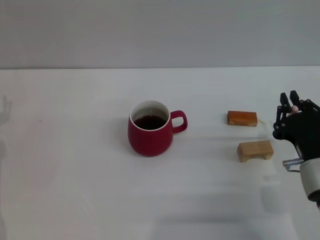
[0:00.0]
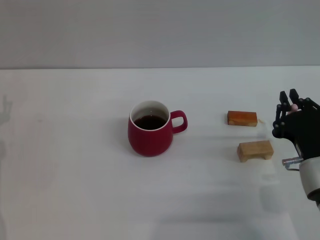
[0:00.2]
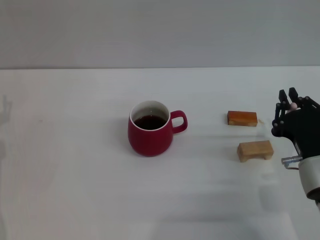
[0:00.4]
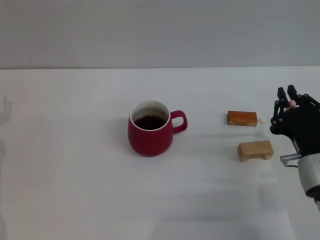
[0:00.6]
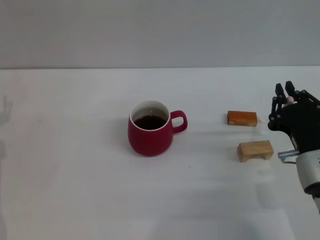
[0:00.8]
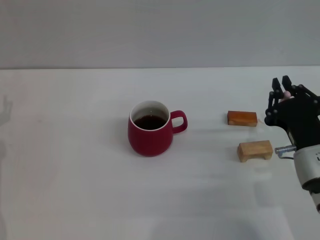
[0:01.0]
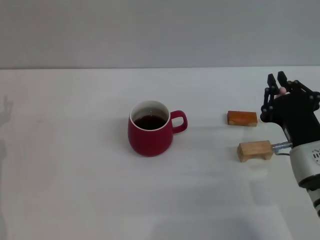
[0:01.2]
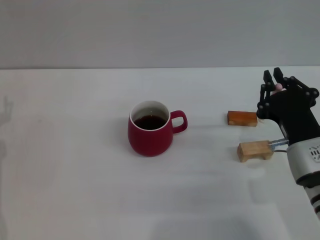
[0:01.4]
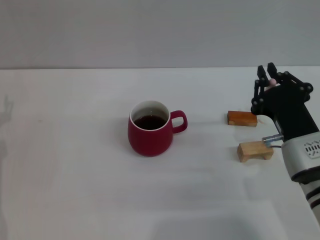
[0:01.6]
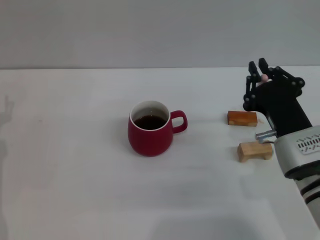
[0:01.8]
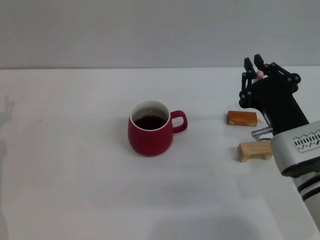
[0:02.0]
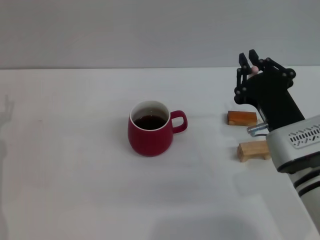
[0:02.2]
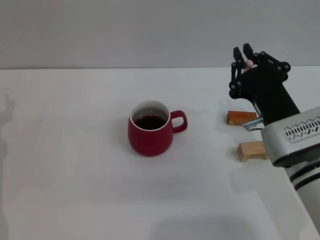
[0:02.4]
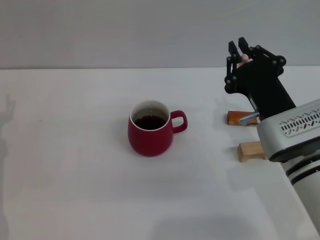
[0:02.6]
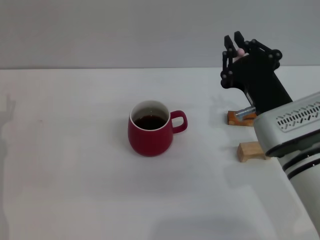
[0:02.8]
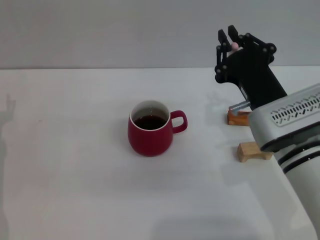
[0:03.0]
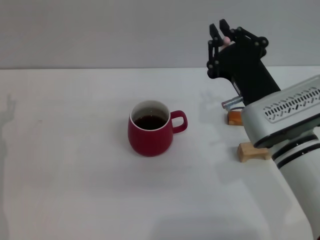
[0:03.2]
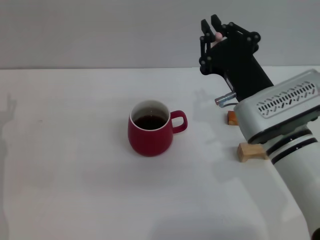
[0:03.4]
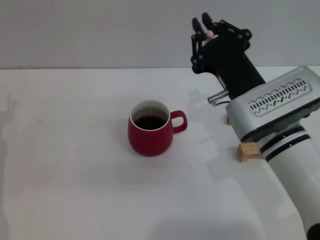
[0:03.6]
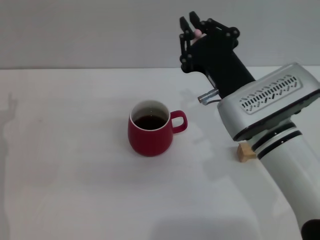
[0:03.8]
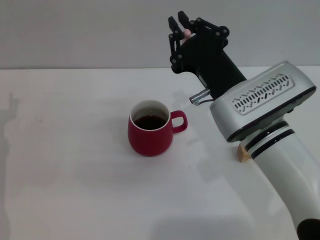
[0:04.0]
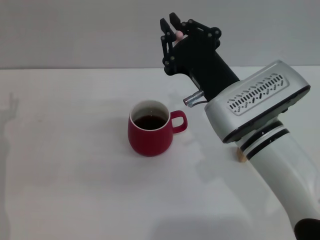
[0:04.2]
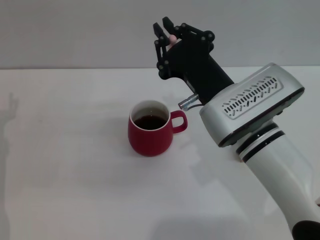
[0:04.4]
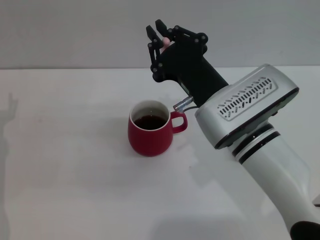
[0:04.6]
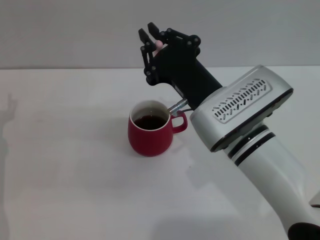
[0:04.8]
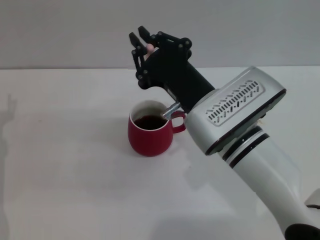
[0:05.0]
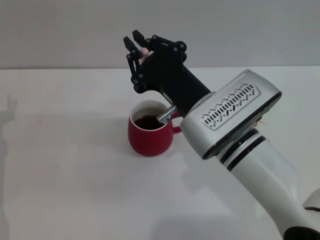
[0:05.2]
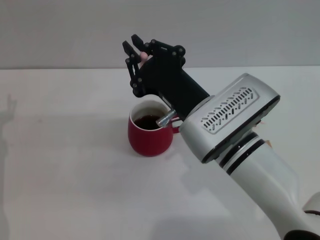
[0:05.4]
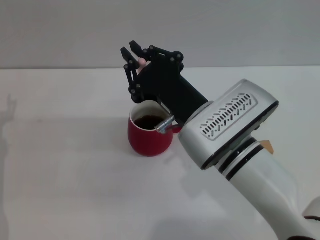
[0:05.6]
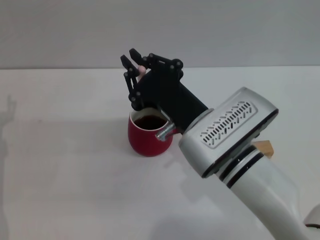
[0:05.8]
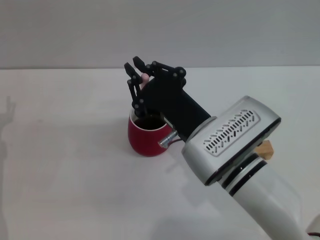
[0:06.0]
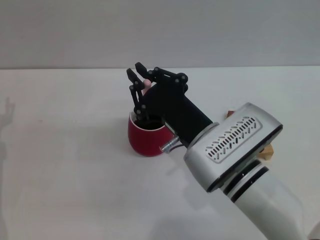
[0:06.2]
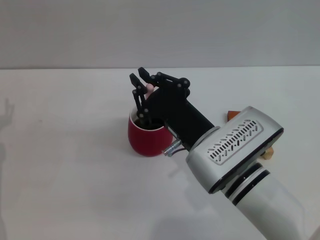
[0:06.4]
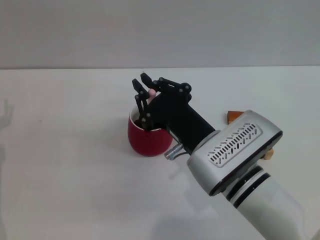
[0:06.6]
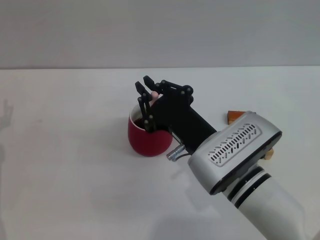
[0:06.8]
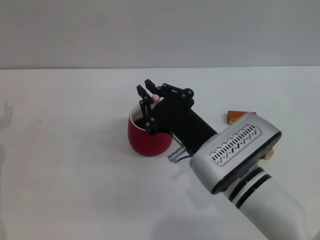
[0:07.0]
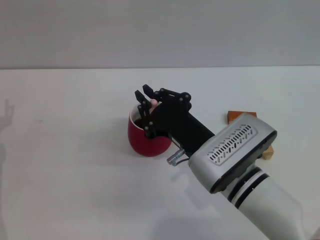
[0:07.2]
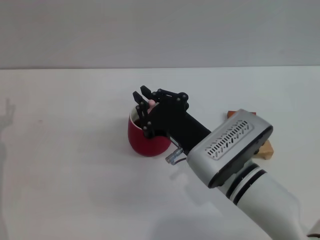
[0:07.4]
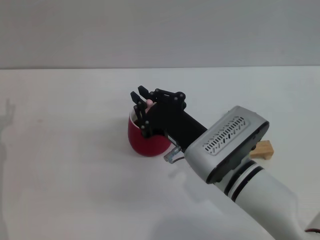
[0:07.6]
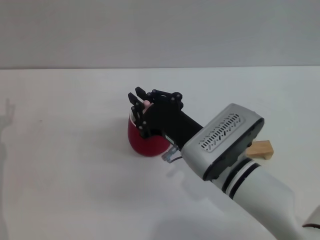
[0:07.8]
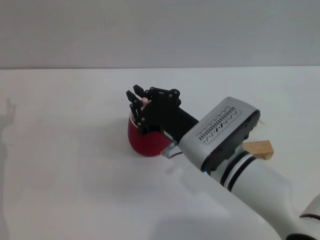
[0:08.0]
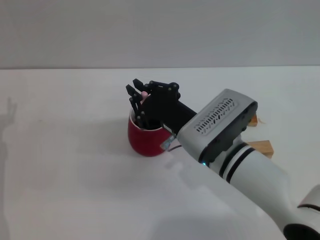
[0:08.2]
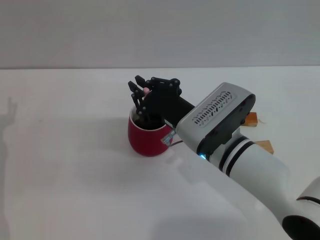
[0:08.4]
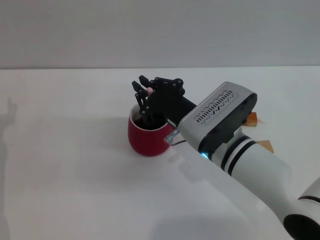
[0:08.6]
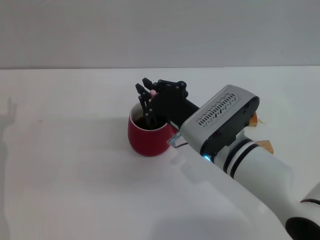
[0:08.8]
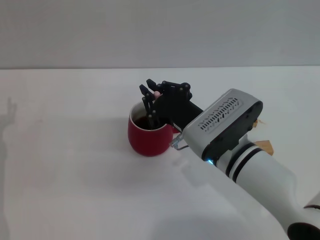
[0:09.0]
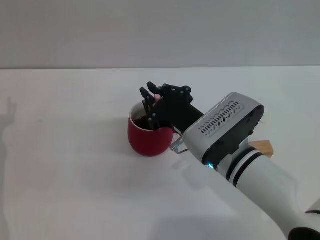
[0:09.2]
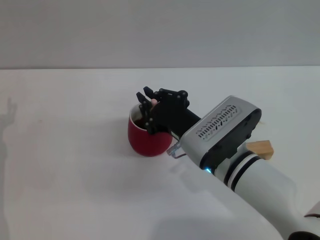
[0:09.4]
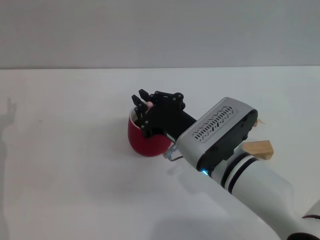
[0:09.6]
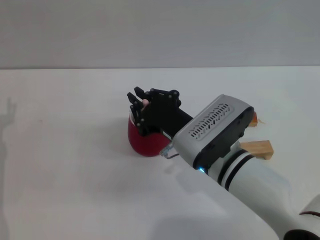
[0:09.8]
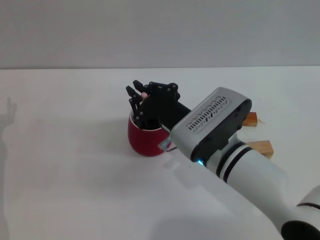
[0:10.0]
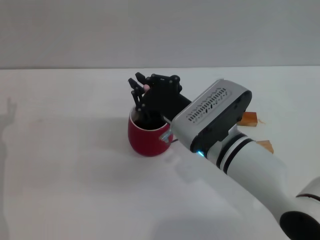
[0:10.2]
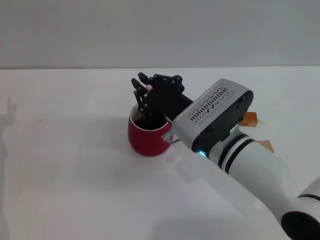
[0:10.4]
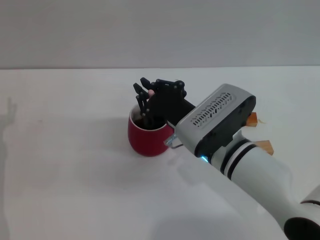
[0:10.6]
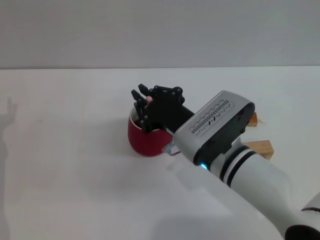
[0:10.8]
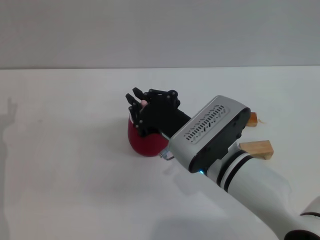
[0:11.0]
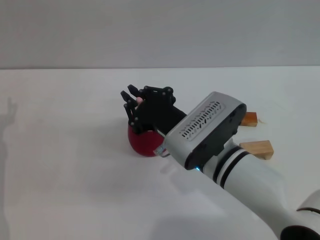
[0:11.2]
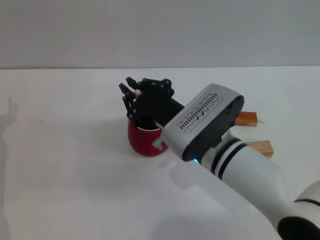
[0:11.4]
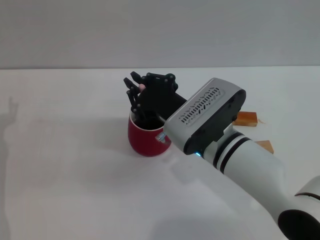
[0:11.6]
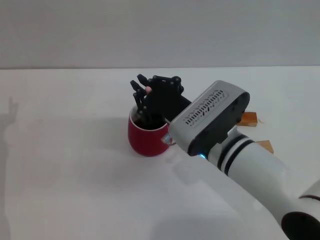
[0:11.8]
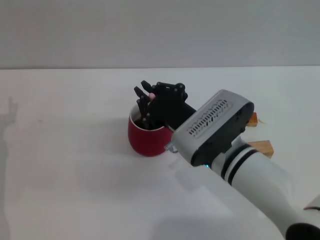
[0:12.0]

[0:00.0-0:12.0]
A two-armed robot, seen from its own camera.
Task of the whole recording: Move the red cup to the center, lift the pink spoon, stir it three times in the cup, and put the spoon into the cup.
0:00.0 to 0:01.6: The grippers make only small movements.
0:01.6 to 0:03.0: The right gripper shifts by some 5 cm.
0:03.0 to 0:04.4: The right gripper heads to the left, covering some 5 cm.
0:06.0 to 0:12.0: The grippers move only a little.

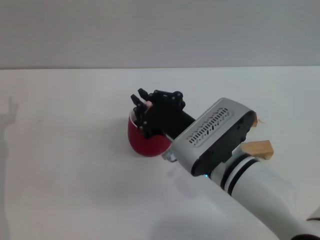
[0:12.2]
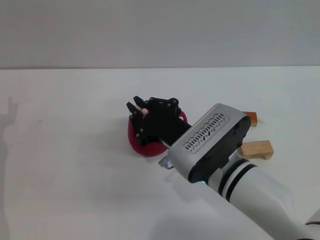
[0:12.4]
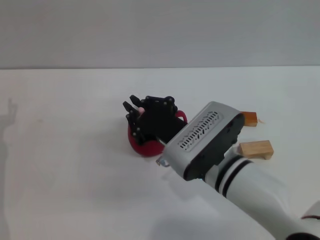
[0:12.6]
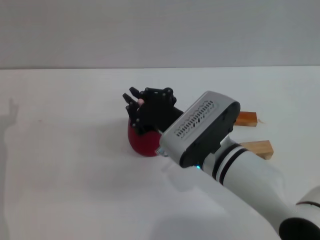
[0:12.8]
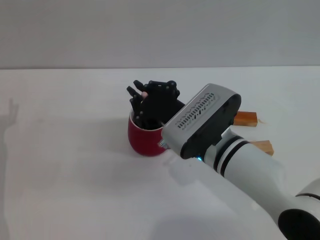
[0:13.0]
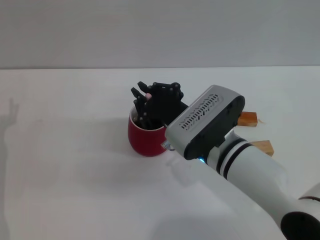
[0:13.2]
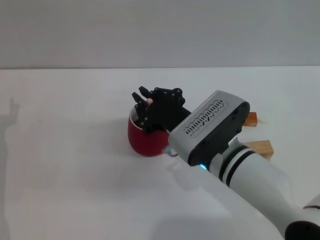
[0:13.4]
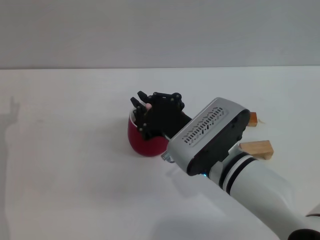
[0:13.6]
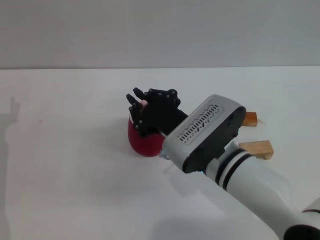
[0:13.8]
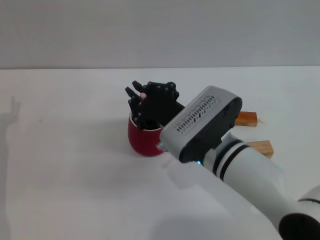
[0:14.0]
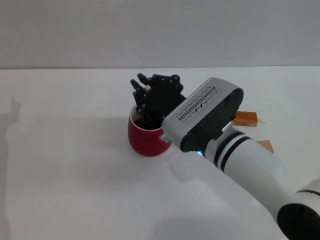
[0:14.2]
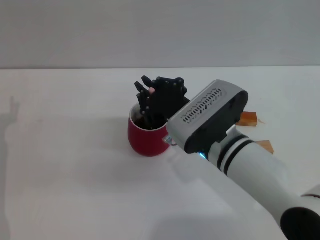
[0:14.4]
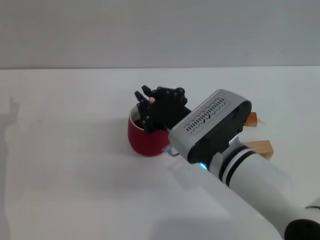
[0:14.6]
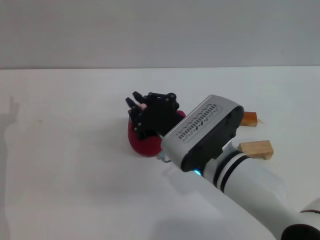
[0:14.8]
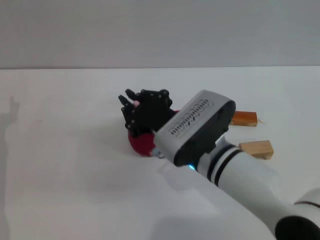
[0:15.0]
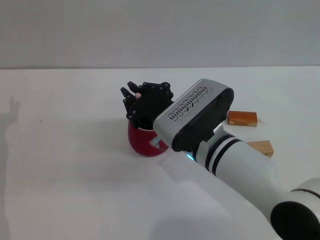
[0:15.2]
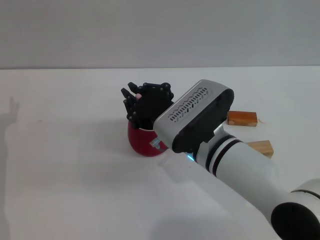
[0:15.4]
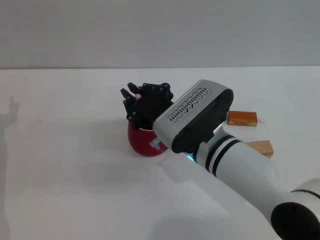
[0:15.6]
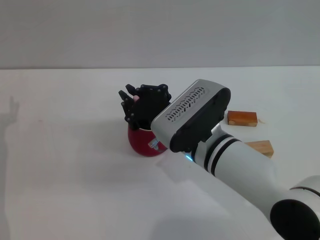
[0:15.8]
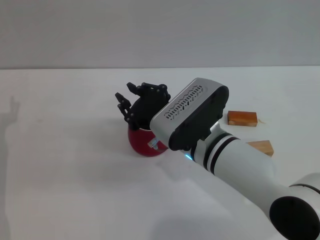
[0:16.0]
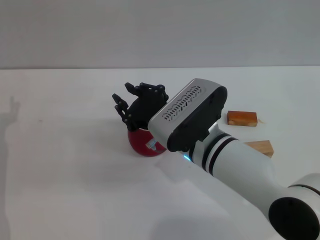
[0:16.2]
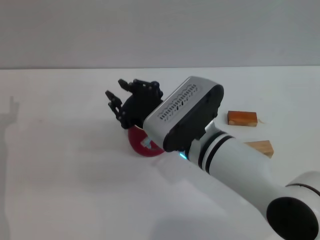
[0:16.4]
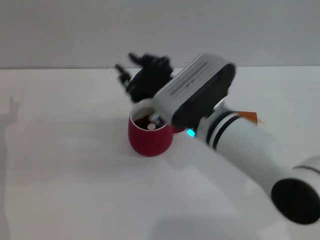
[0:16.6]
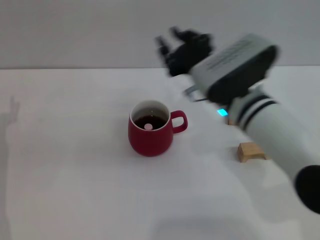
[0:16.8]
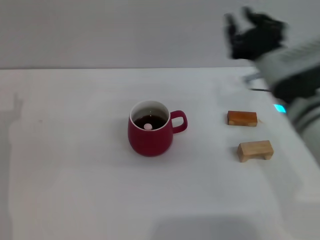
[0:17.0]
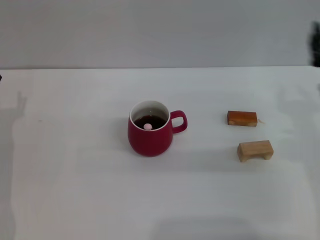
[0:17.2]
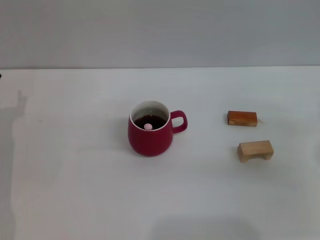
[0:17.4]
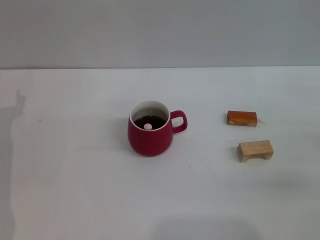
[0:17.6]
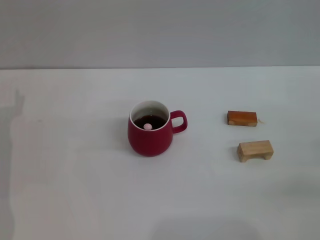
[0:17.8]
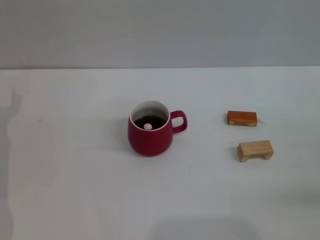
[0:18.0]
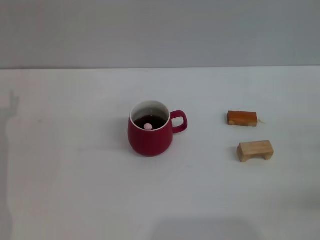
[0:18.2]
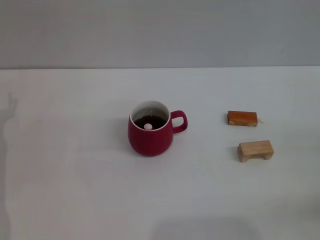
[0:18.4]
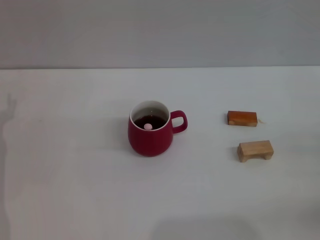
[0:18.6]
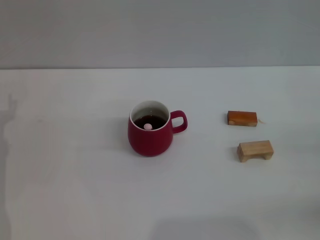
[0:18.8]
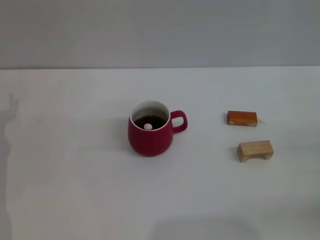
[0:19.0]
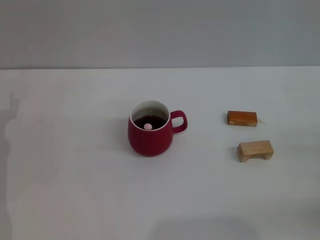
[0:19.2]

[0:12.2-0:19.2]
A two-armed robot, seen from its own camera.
Task of the whole recording: Move the red cup to the center, lift the pink spoon, stir it three times in the cup, and put the spoon into the cup.
Step, 0:12.2 to 0:16.6: Stir the coffee in the cup with the right gripper.
0:12.2 to 0:16.4: The grippers make only small movements.
0:16.4 to 0:17.8: The right gripper heads to the right, covering roughly 30 cm, and opens.

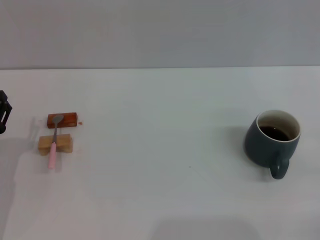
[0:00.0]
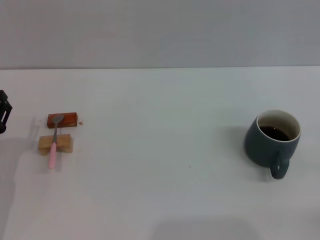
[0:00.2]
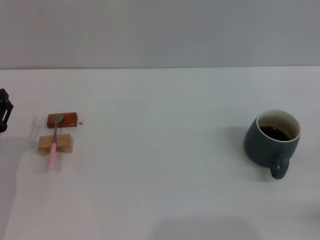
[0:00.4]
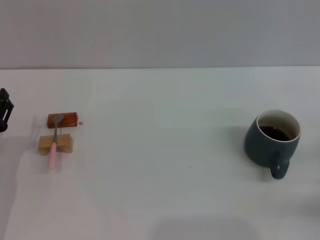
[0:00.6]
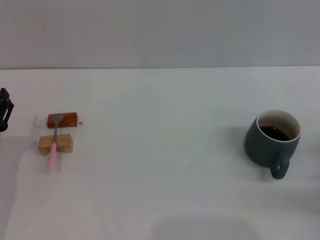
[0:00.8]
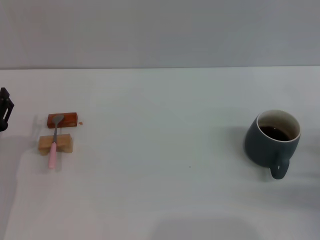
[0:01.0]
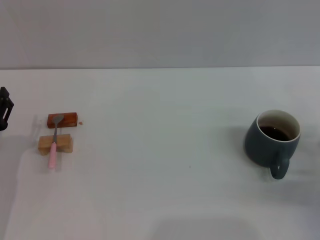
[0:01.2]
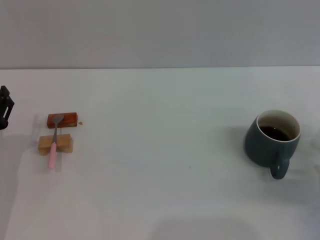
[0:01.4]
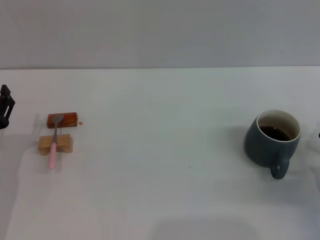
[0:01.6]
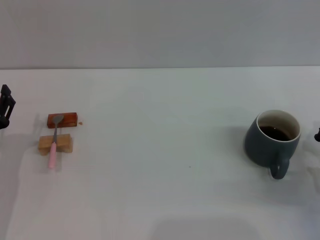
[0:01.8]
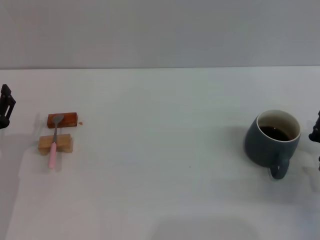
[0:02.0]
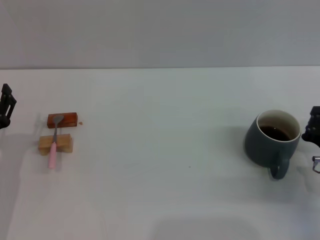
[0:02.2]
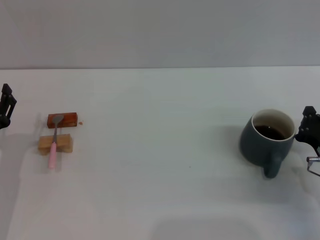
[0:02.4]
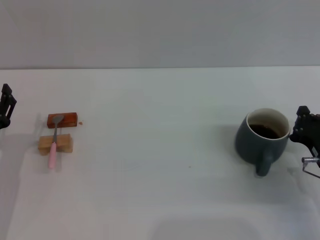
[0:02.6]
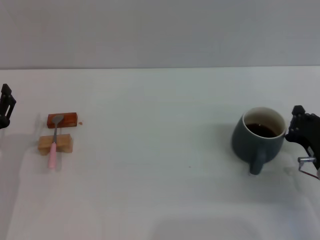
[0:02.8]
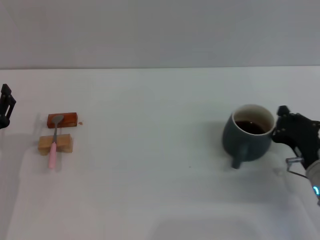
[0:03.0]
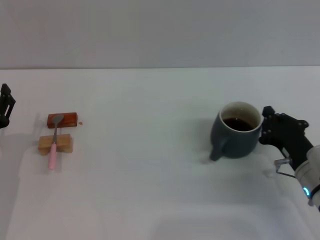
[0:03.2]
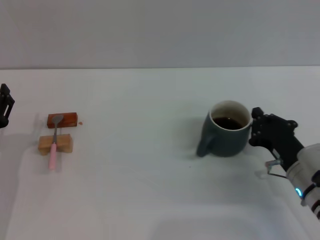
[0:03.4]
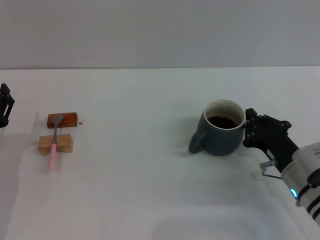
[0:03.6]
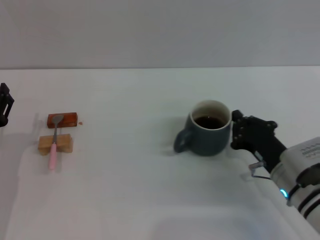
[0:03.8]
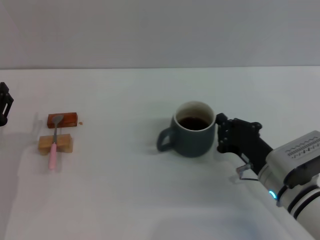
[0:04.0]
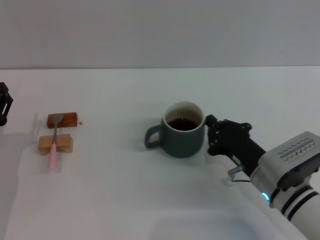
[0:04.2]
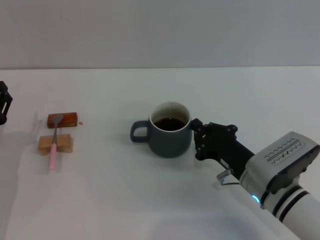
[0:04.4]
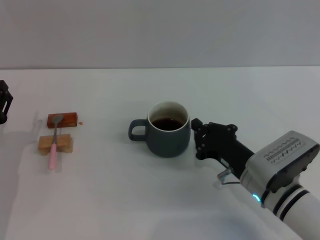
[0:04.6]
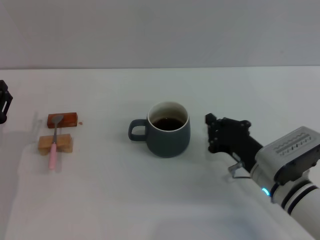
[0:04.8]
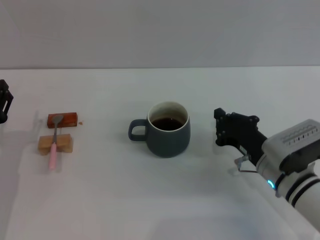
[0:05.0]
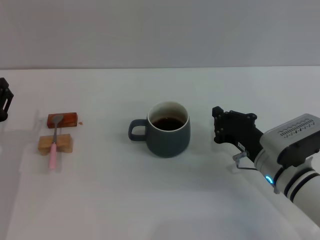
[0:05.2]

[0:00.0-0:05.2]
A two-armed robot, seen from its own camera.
Task of the whole recording: Move the grey cup to the center, lift the pink spoon, stir it three times in the cup, and put the spoon into the cup.
0:00.0 to 0:01.8: The right gripper is displaced to the left and forward by roughly 10 cm.
0:01.8 to 0:03.4: The right gripper moves to the left, about 5 cm.
